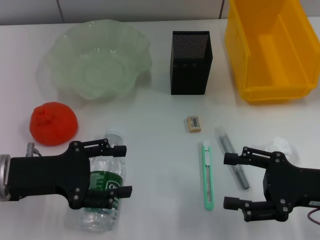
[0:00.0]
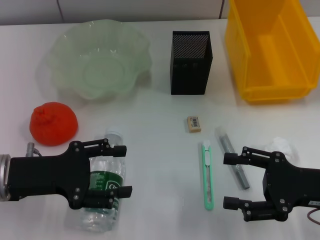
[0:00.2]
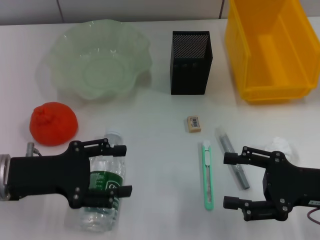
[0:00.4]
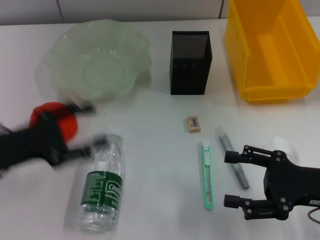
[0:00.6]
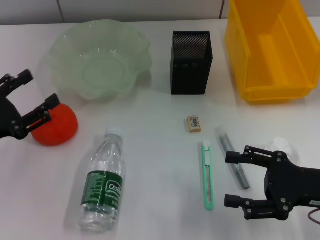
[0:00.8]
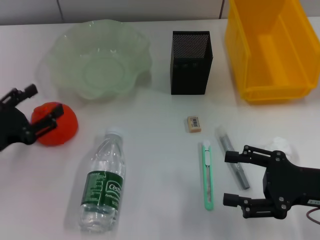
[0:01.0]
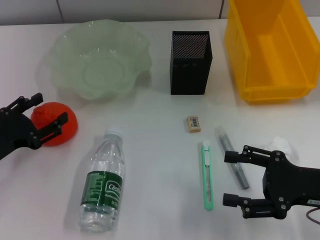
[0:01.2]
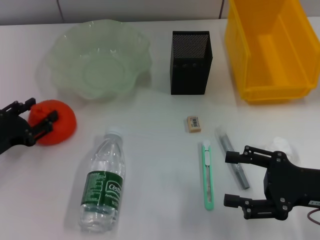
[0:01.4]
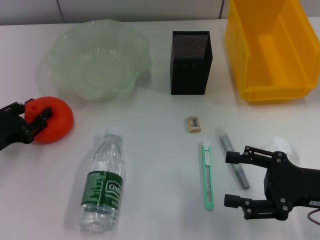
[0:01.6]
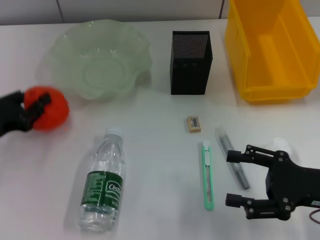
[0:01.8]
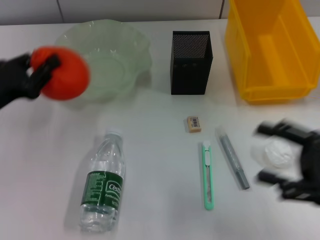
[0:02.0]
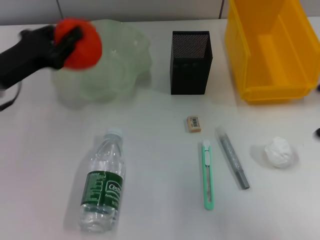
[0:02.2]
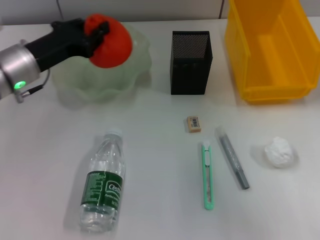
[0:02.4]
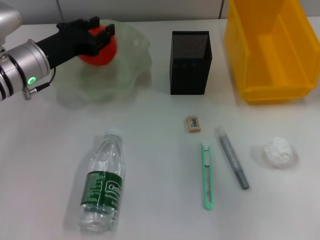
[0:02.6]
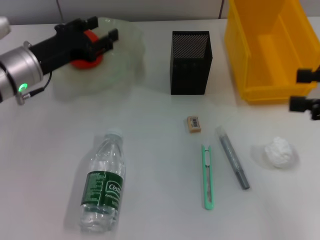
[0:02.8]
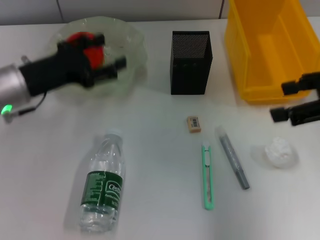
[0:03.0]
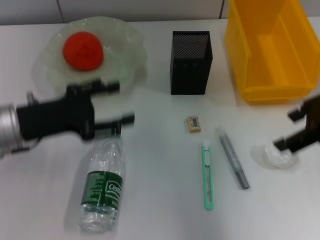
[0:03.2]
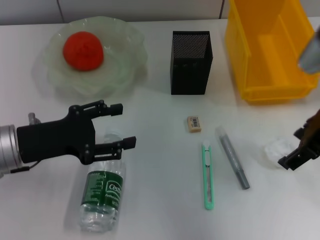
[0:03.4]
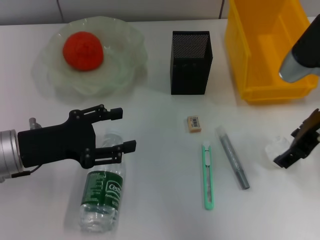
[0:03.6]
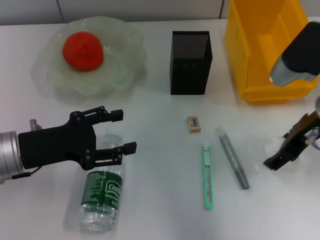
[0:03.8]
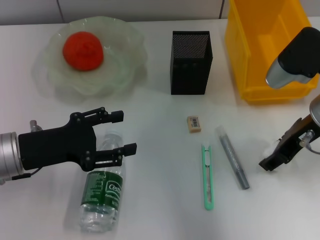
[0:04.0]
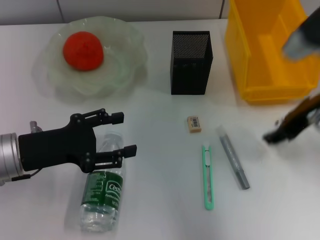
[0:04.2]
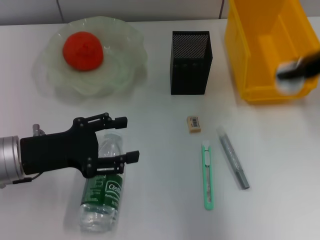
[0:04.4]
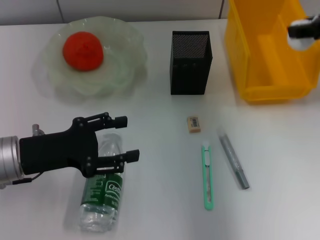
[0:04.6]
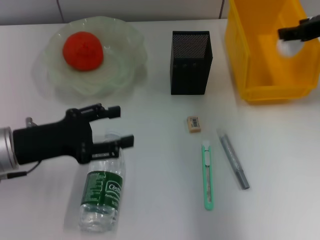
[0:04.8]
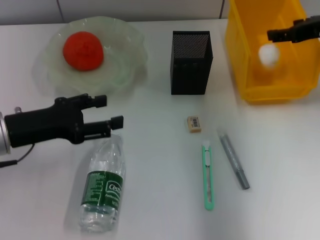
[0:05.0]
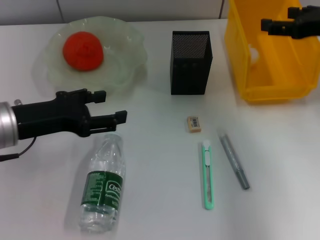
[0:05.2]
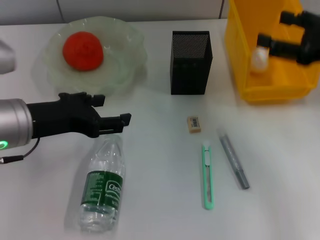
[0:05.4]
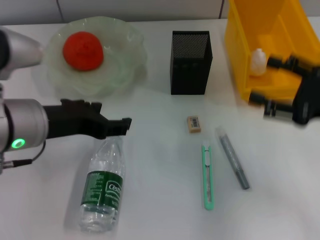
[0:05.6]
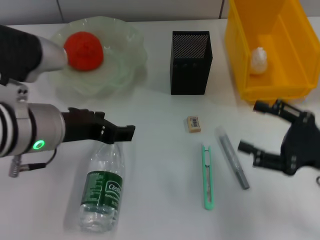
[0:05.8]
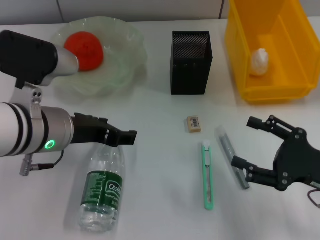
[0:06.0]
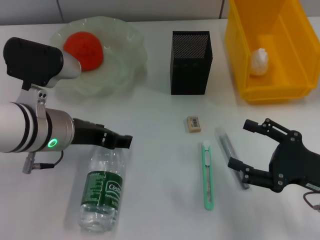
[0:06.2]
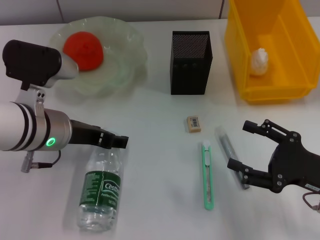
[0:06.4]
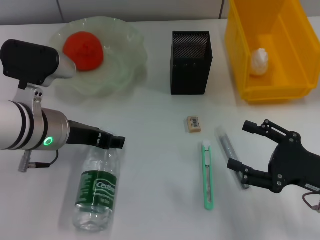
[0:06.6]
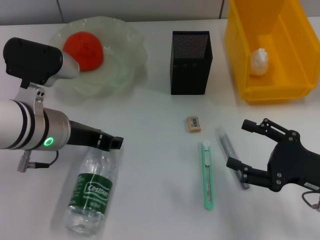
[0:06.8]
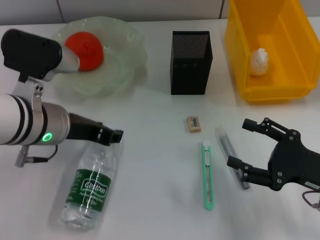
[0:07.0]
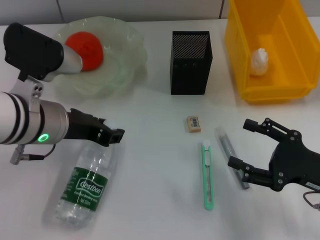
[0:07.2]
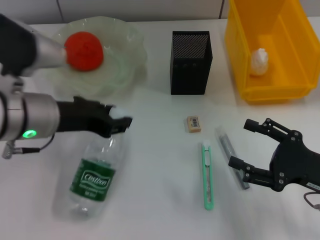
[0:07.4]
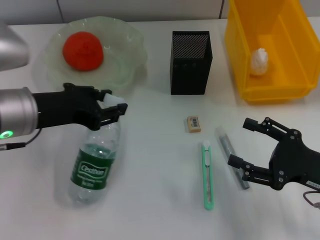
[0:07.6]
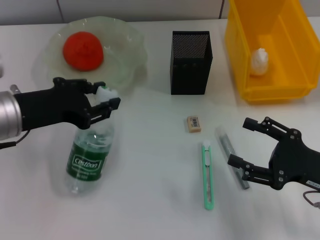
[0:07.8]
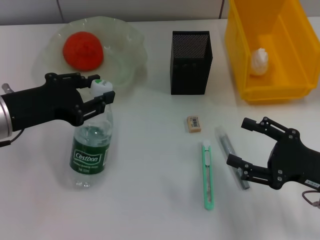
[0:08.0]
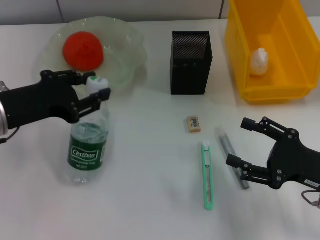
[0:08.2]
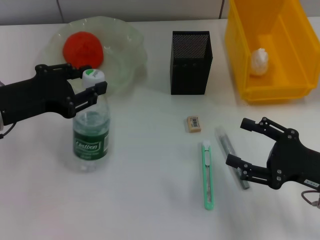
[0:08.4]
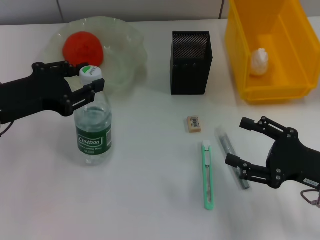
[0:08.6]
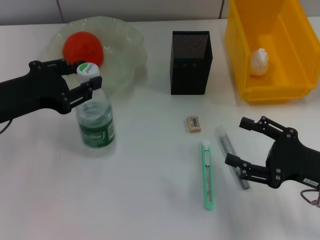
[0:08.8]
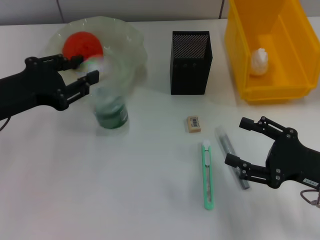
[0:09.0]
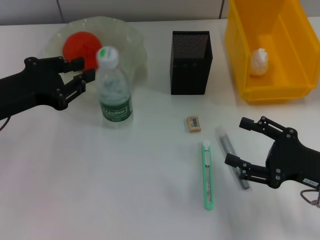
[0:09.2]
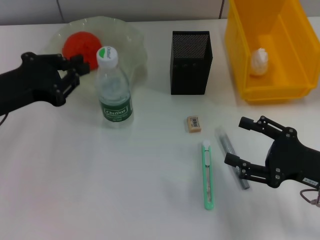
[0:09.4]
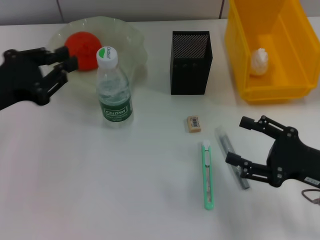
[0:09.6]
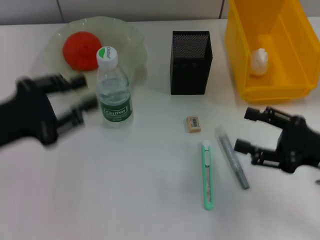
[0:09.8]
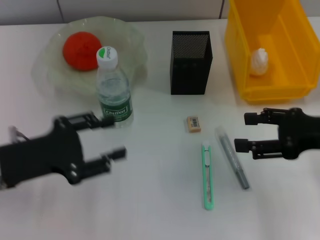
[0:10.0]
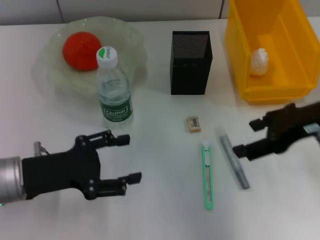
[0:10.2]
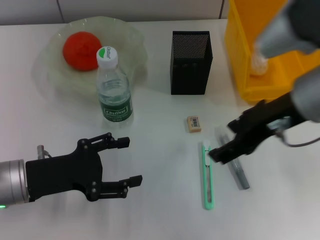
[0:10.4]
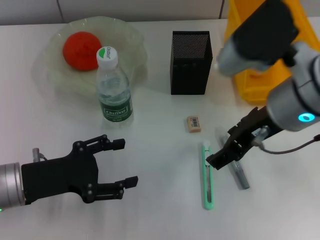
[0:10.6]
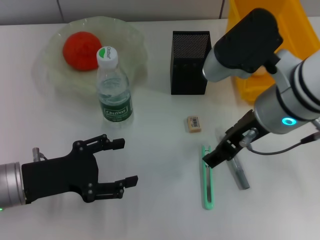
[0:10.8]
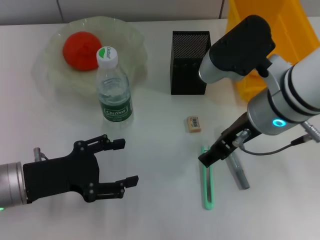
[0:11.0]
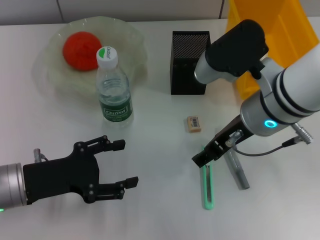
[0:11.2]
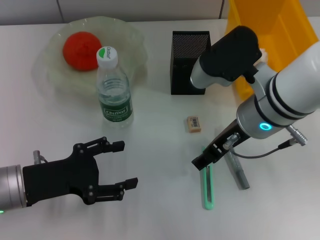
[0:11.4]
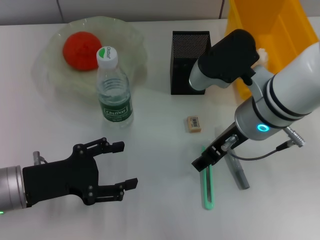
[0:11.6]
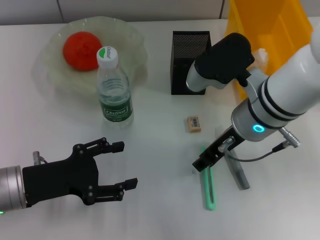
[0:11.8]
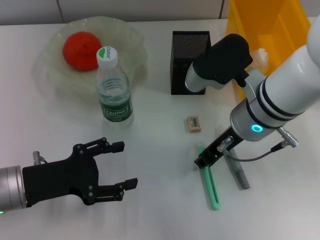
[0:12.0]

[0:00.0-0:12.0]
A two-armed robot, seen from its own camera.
Step, 0.0 to 1.6 s: Grab the orange with the left hand.
Step, 1.8 to 3.0 s: Place the orange into the fruit bowl with the left hand.
Step, 3.2 to 4.0 s: Grab the paper ball with the right hand.
Step, 4.2 to 5.0 s: Place the paper ball into the trash can with the right hand.
Step, 5.4 to 7.0 s: Grab the water bottle with the left hand.
Step, 7.4 to 9.6 s: Place the water bottle on the table with the left hand.
0.0 to 1.6 s: The left gripper moves to the left and downward, some 10 cm.
1.6 to 3.0 s: The left gripper shifts roughly 15 cm to the right, forward and upward, and closes and opens again, while the right gripper moves upward and forward, approximately 20 cm.
3.0 to 4.4 s: The right gripper heads forward, covering some 5 cm, reaches roughly 10 cm downward, then returns, and closes its fingers, while the left gripper goes roughly 10 cm backward.
4.4 to 6.0 s: The left gripper moves to the right and upward, about 10 cm. The right gripper goes approximately 25 cm downward and backward, and opens up.
6.0 to 7.6 s: The left gripper closes.
7.6 to 9.0 s: The left gripper heads to the left, covering approximately 5 cm.
9.0 to 10.4 s: The right gripper heads upward, to the left and forward, covering approximately 20 cm, while the left gripper goes approximately 10 cm downward, and opens its fingers.
10.4 to 12.0 s: The right gripper is displaced downward and to the left by roughly 10 cm, and closes.

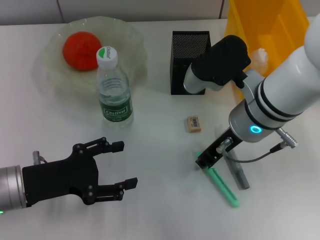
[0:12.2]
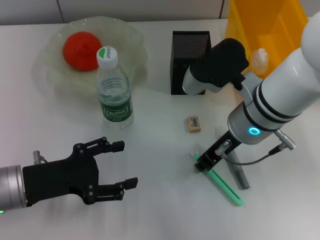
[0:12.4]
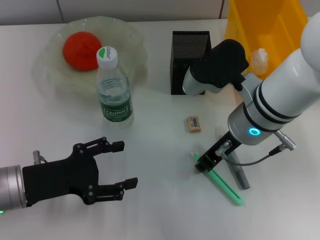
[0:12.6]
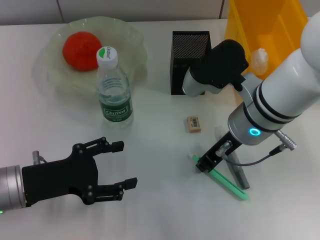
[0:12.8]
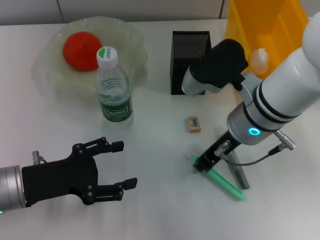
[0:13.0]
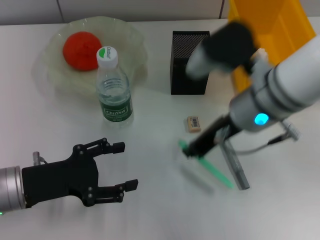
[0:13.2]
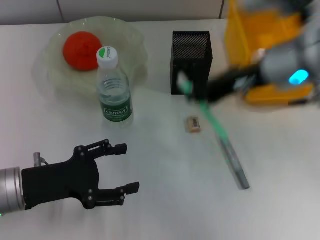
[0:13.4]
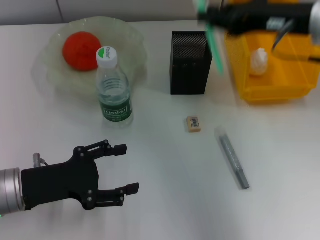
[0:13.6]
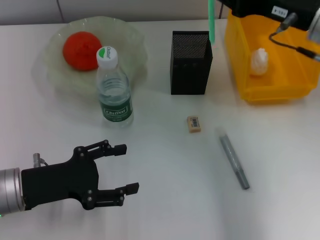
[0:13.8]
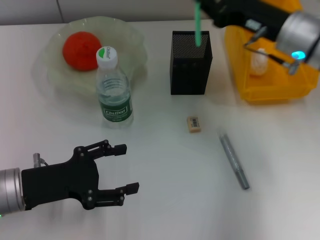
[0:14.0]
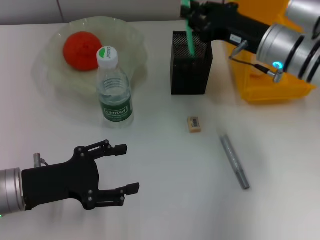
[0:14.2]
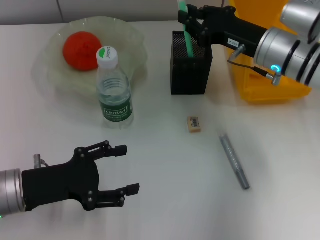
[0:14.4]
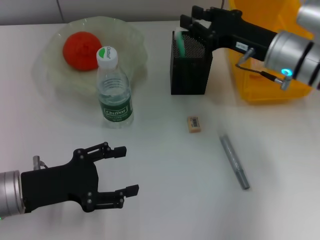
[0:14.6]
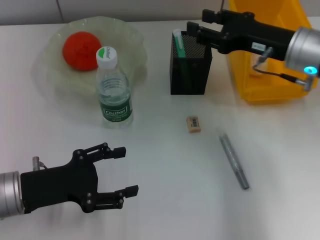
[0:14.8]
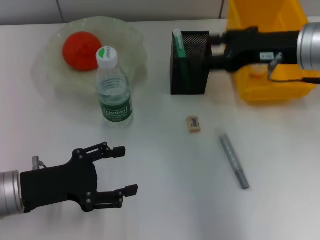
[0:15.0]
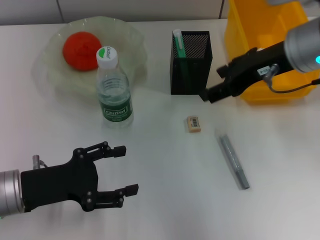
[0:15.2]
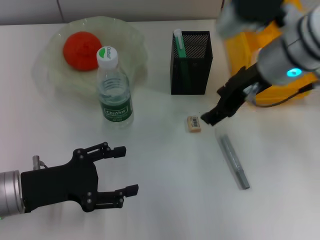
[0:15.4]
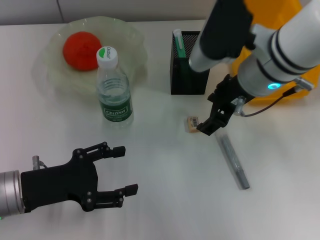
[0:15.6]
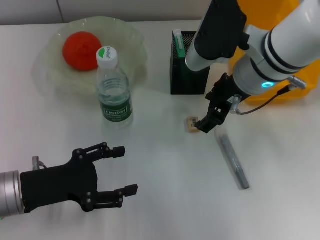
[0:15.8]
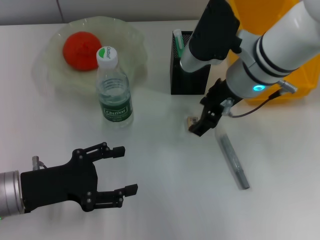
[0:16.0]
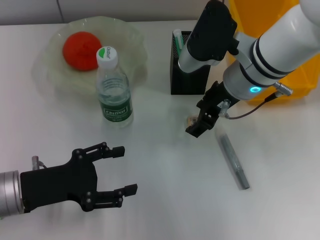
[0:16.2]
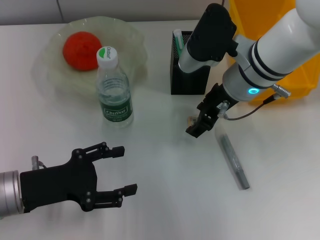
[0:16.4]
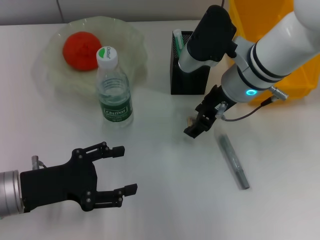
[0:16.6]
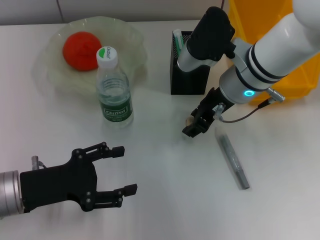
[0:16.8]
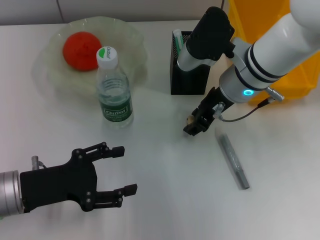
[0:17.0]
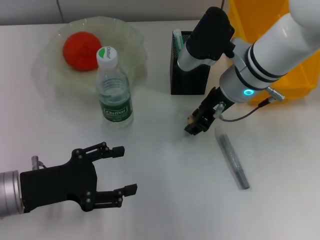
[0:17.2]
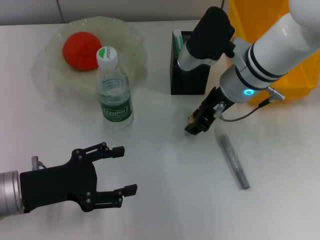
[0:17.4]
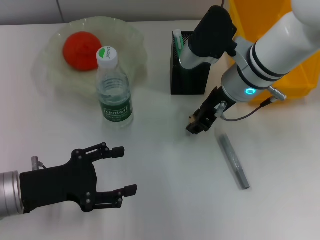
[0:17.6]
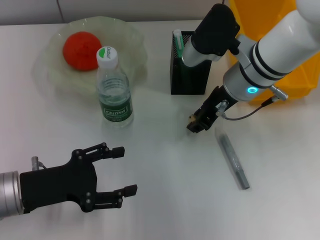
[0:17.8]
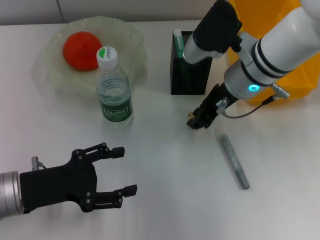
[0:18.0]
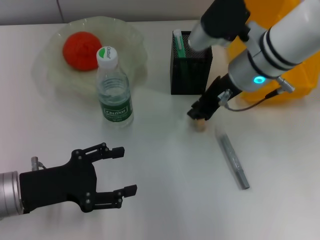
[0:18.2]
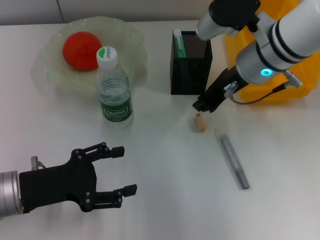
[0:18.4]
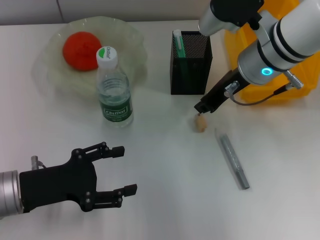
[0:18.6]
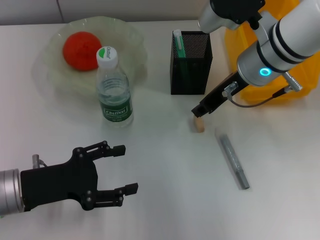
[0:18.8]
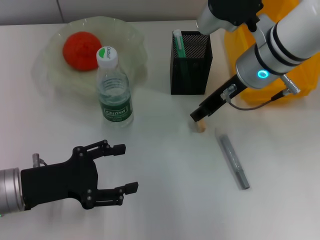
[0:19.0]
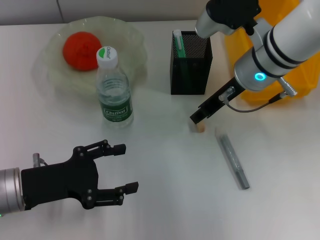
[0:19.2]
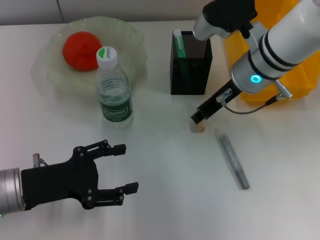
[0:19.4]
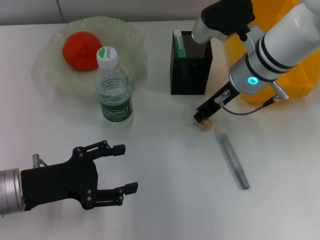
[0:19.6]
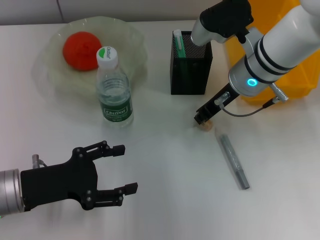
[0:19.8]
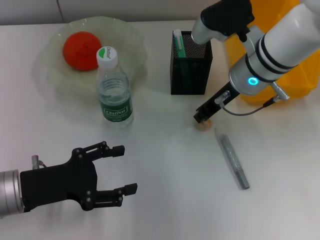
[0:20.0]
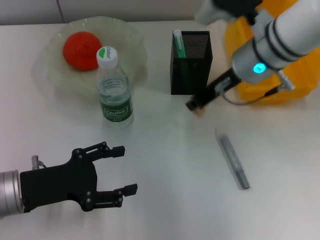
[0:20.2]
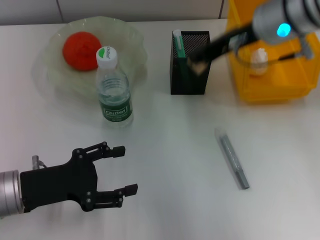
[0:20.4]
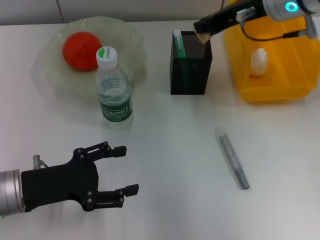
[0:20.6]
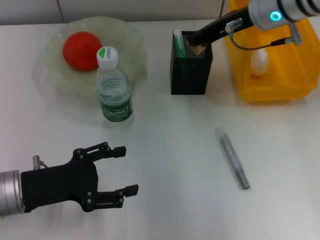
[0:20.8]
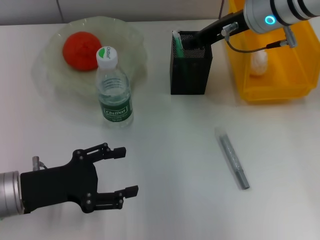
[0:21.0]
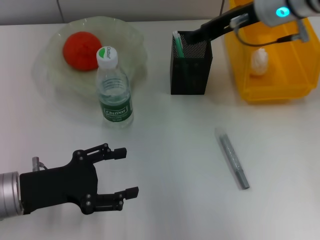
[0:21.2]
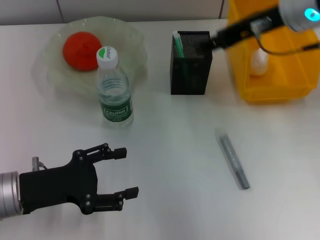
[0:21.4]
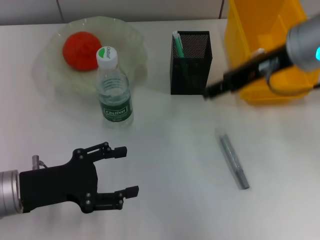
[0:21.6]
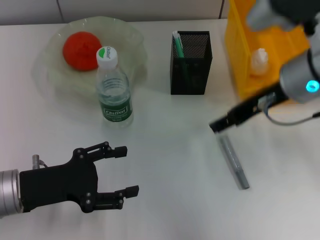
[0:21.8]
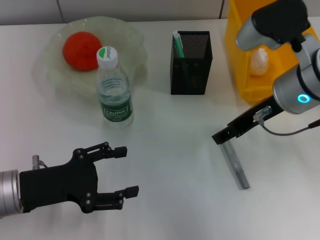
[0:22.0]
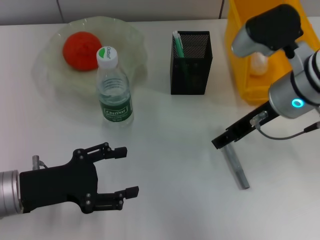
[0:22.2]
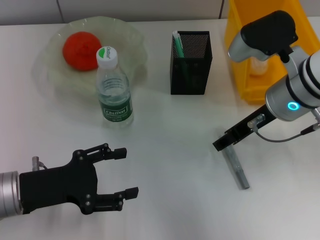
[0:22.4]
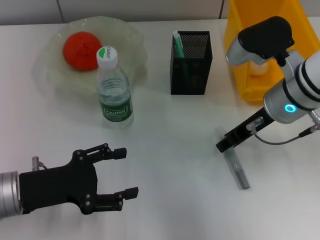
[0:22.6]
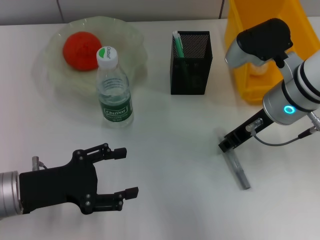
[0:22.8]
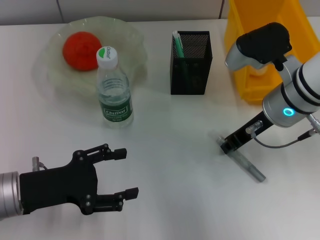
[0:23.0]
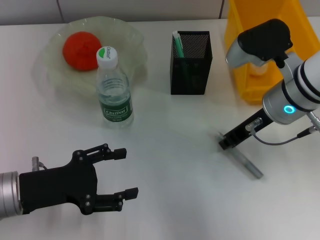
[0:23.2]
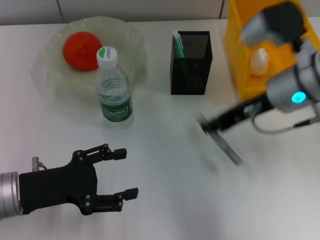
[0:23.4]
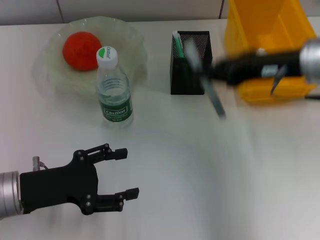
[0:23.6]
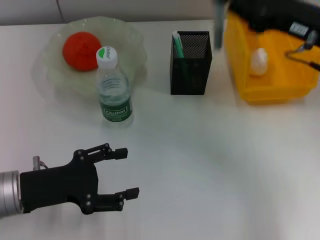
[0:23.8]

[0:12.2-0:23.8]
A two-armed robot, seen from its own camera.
Step, 13.0 to 14.6 s: Place the blue utility knife into the pen holder with the right hand.
Step, 14.8 to 19.8 s: Grab the eraser with the right hand.
Step, 20.0 to 21.2 s: Put the eraser into the pen holder with the right hand.
Step, 21.4 to 23.0 s: Grab the gray glue with the right hand.
12.2 to 13.6 s: The right gripper goes some 15 cm upward and to the right.
13.6 to 15.0 s: The right gripper opens its fingers.
15.0 to 16.6 s: The right gripper travels to the left and downward by some 10 cm.
16.6 to 18.0 s: The right gripper closes up.
18.0 to 19.4 s: The grippers stay close to where they were, moving slightly.
19.4 to 21.0 s: The right gripper is displaced upward by some 5 cm.
21.0 to 22.4 s: The right gripper is displaced backward and downward by about 10 cm, and opens.
22.4 to 23.8 s: The right gripper is displaced to the right by some 5 cm, and closes its fingers.
